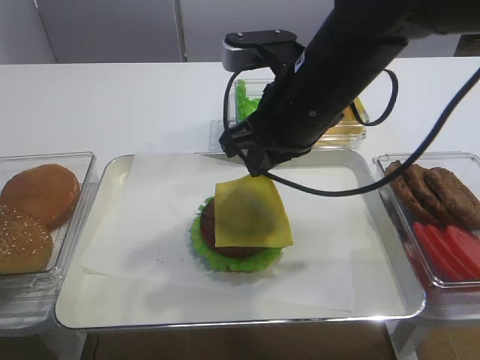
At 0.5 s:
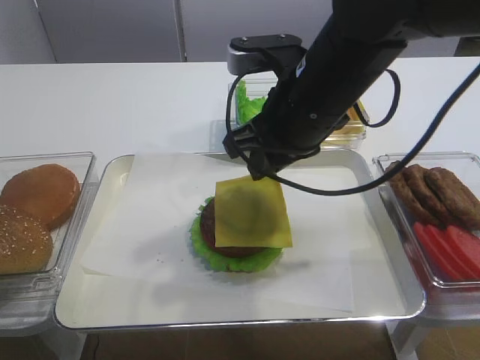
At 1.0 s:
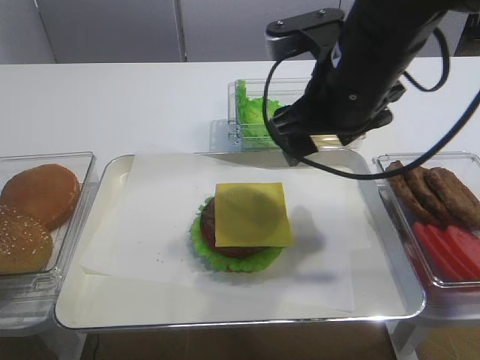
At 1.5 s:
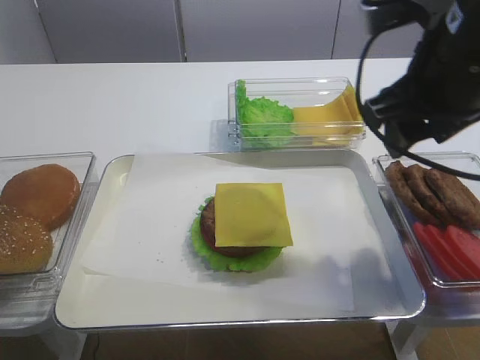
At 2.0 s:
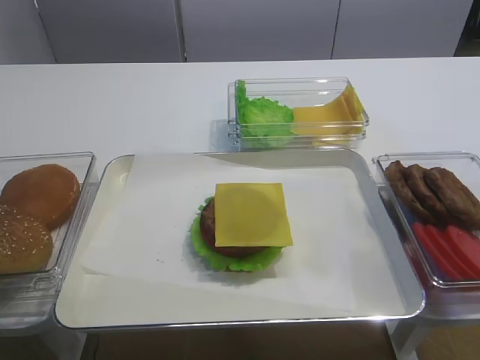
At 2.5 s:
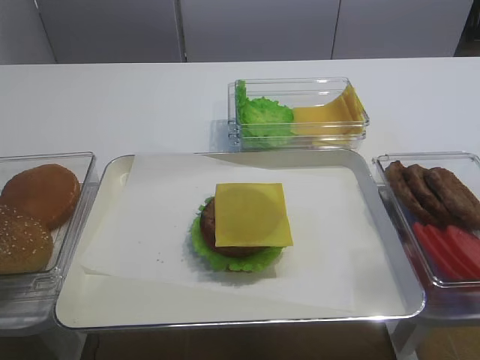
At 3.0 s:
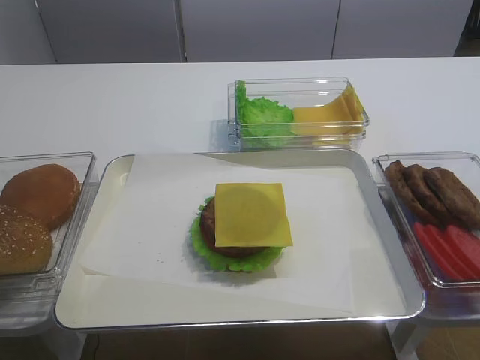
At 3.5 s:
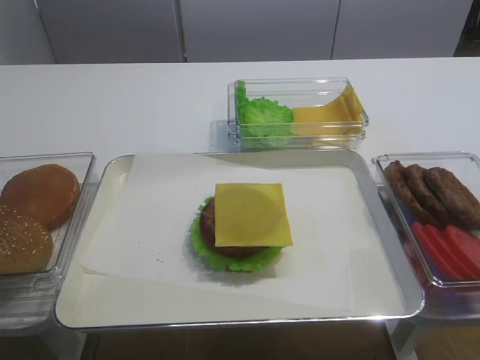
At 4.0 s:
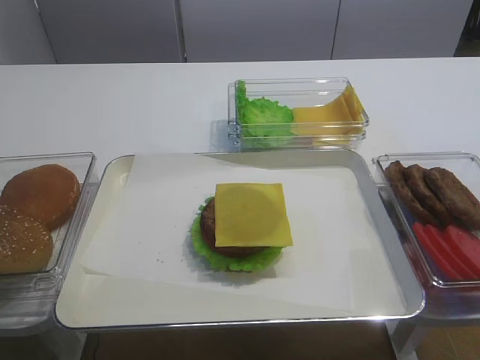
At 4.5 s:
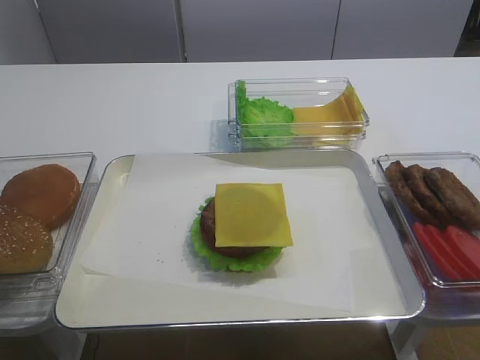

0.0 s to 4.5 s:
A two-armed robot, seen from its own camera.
0.0 to 2.0 s: The right gripper goes some 25 cm backward and to the right, and opens its fingers.

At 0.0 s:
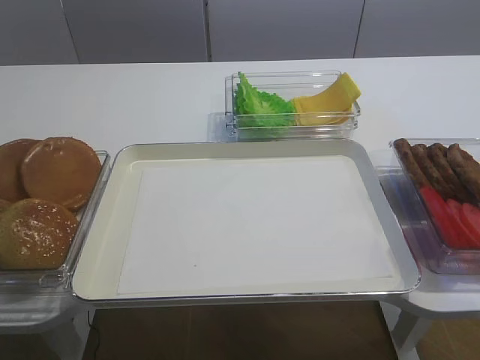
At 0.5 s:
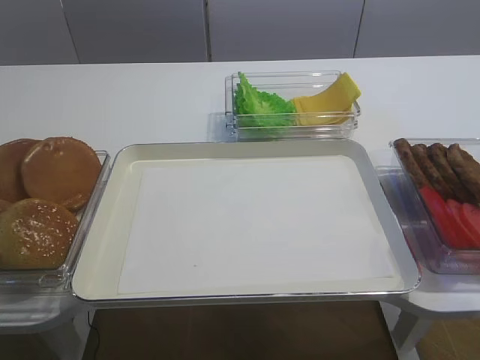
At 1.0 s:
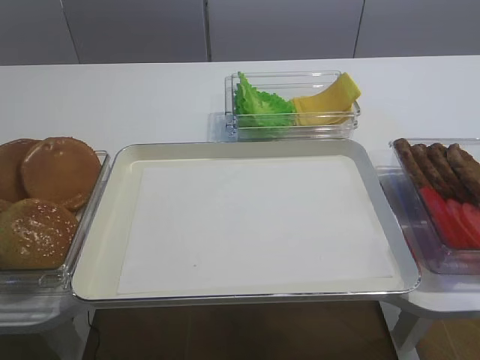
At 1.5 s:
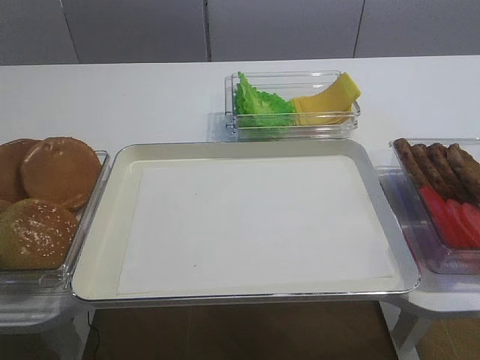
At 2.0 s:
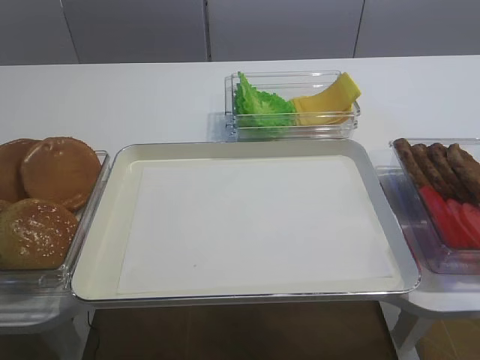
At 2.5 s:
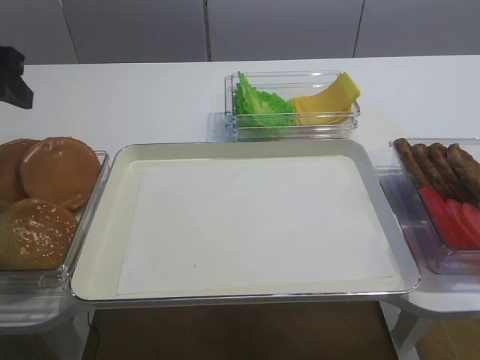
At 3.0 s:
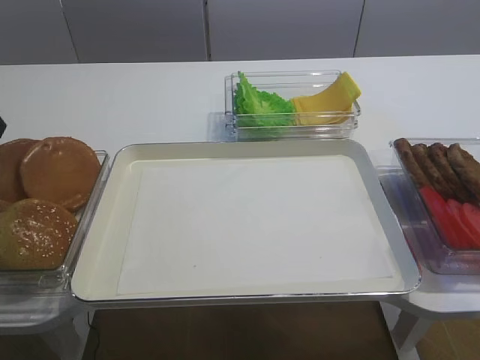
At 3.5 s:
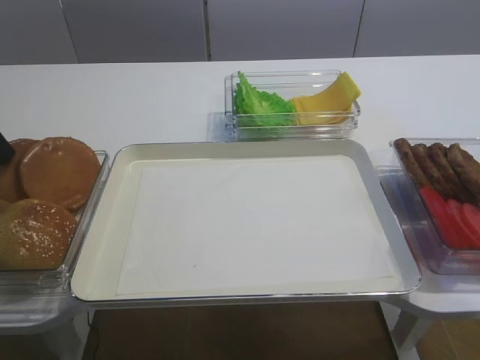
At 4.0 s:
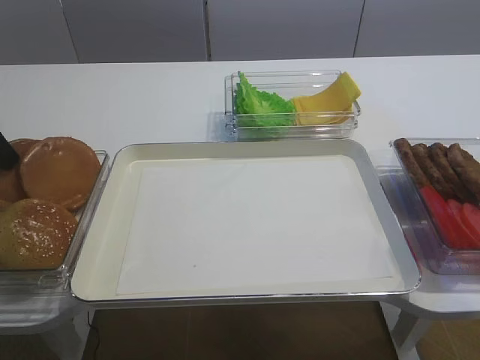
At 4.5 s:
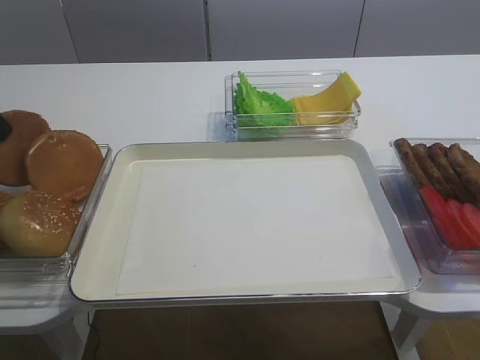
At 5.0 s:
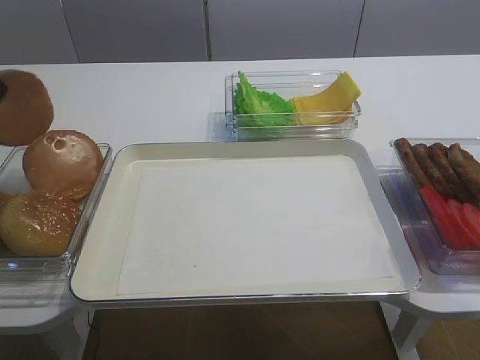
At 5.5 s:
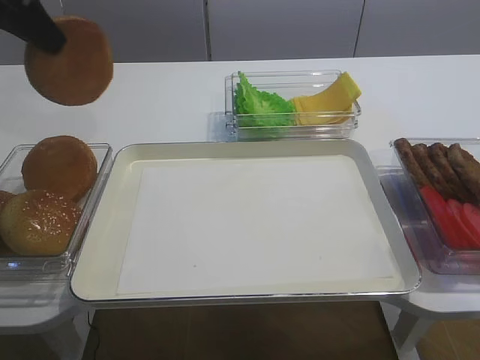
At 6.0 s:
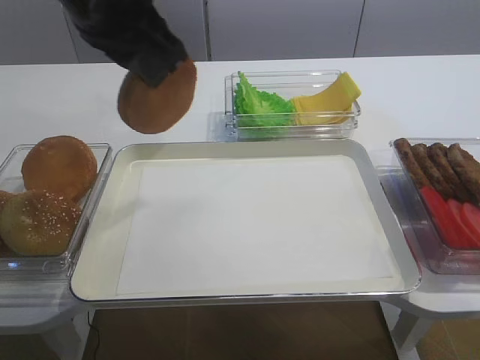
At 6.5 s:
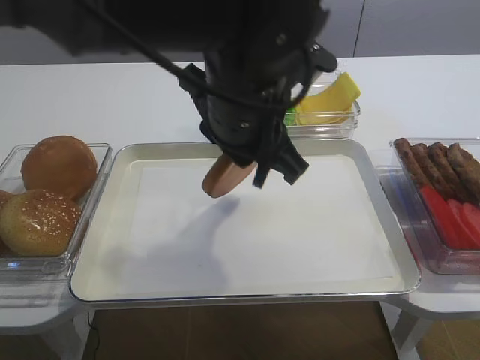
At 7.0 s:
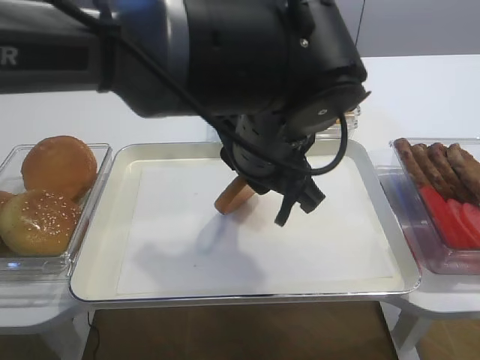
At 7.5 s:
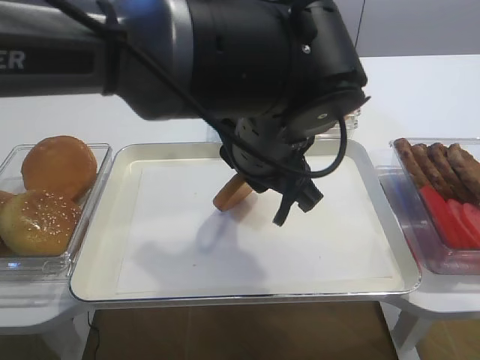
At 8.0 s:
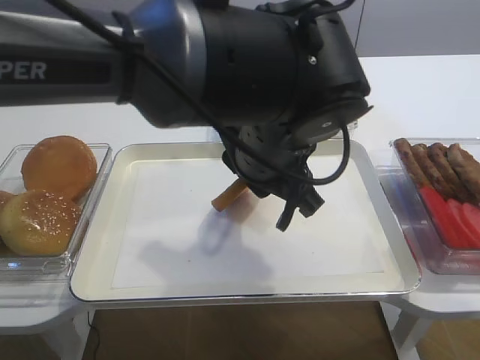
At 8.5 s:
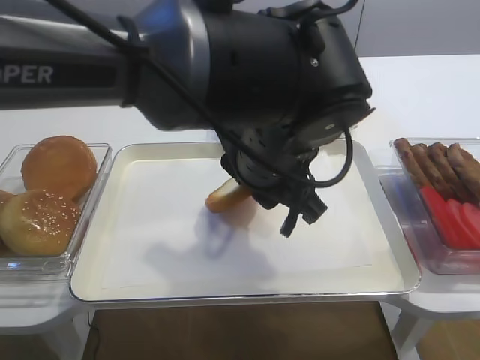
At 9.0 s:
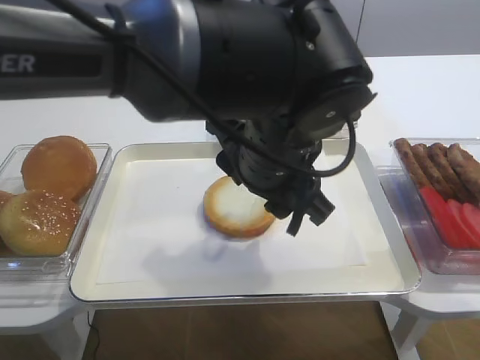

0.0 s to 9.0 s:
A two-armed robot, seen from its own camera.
Step, 0.0 to 5.0 s: Pick up the bread slice with the left gripper.
2.0 to 4.5 s: The left gripper goes approximately 20 cm forward, and closes its fingers.
4.5 to 7.0 s: The left gripper is displaced to the right by about 35 cm.
7.0 to 9.0 s: The left gripper opens up.

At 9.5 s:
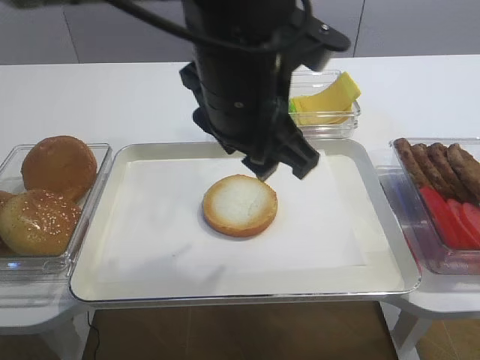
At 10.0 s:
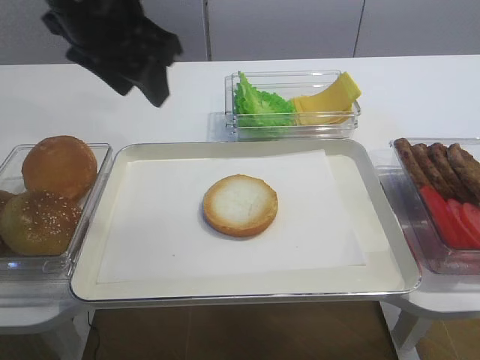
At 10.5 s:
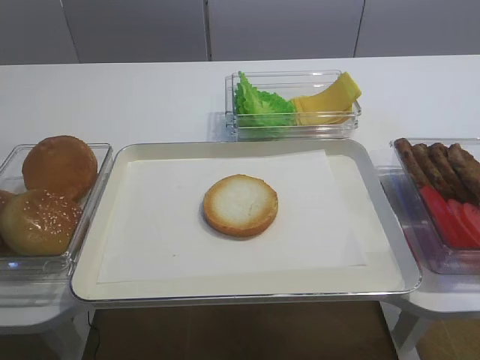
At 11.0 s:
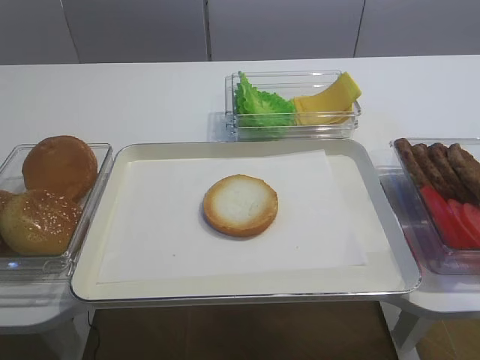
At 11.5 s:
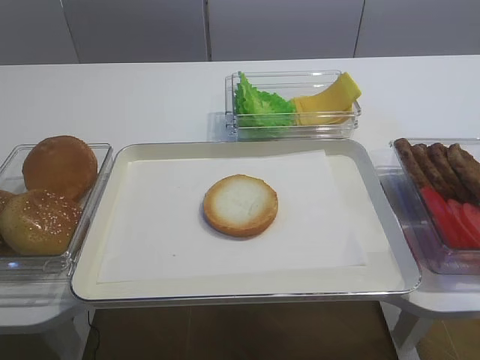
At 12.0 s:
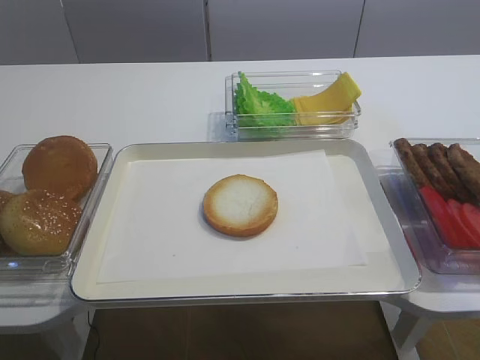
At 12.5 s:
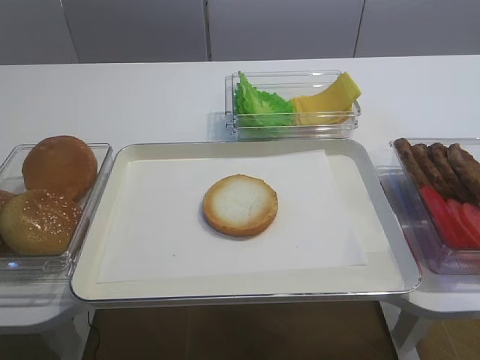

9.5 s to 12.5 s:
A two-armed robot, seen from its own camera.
9.5 to 11.0 s: The left gripper heads to the left, covering some 30 cm.

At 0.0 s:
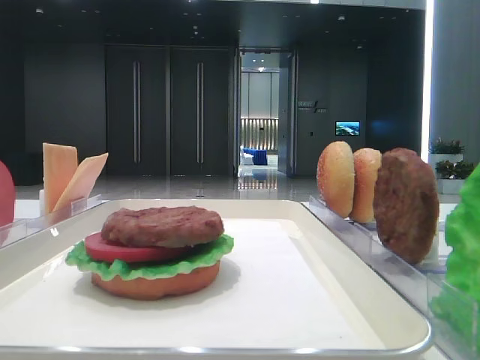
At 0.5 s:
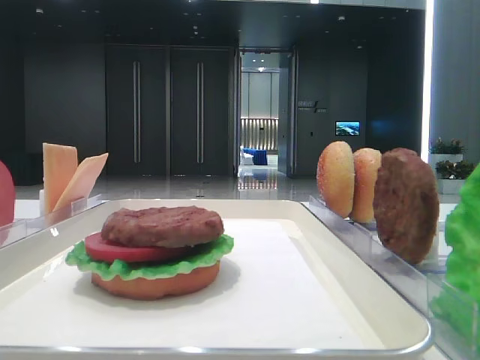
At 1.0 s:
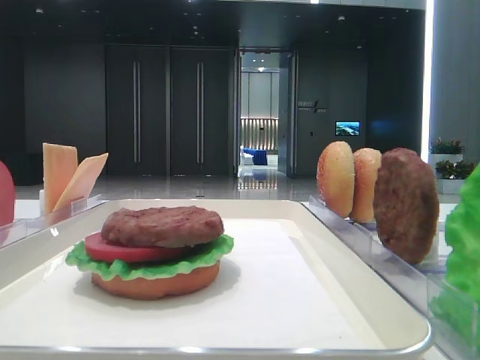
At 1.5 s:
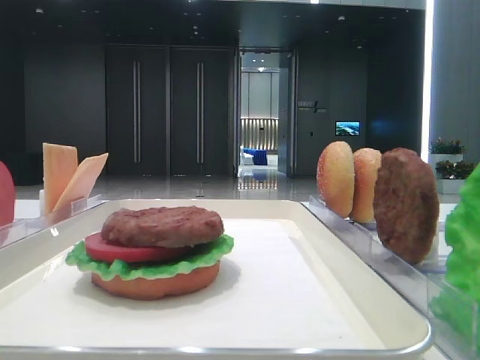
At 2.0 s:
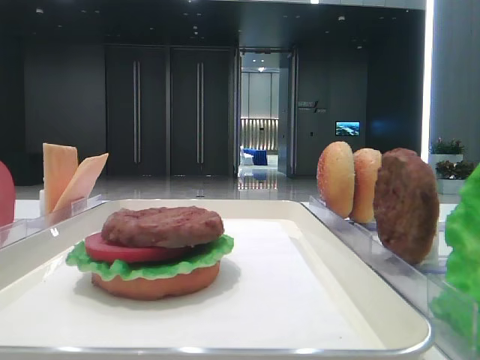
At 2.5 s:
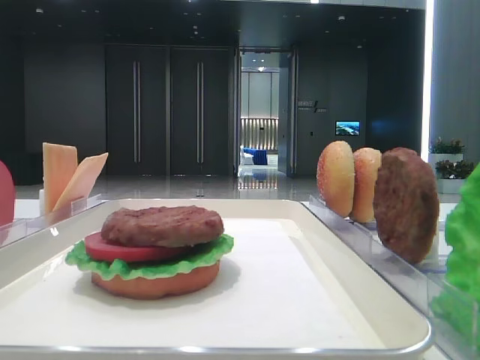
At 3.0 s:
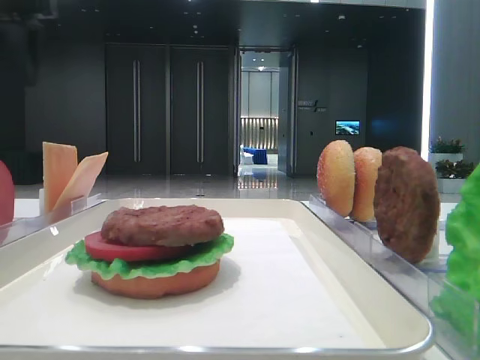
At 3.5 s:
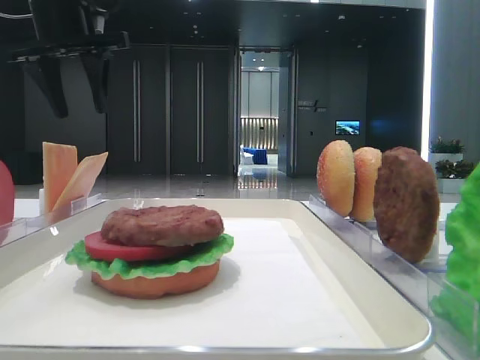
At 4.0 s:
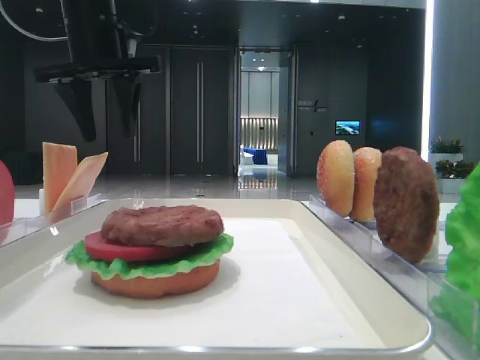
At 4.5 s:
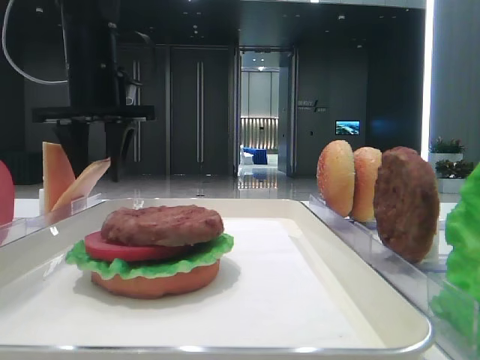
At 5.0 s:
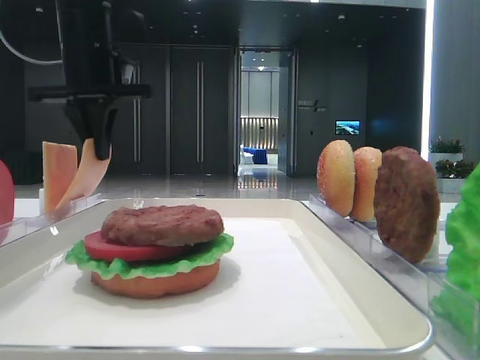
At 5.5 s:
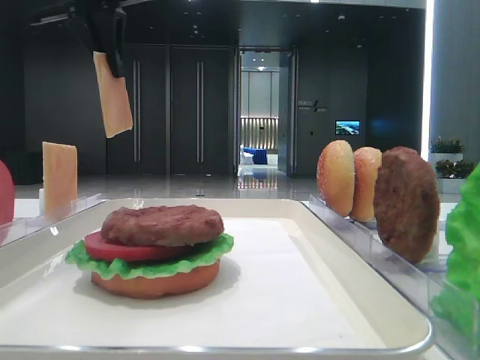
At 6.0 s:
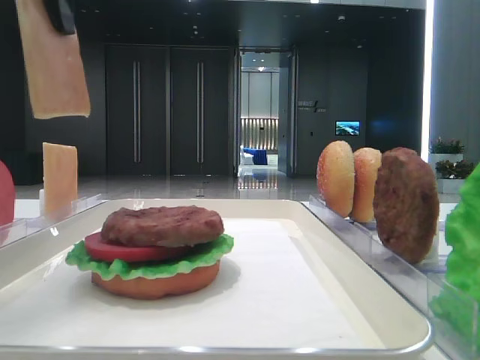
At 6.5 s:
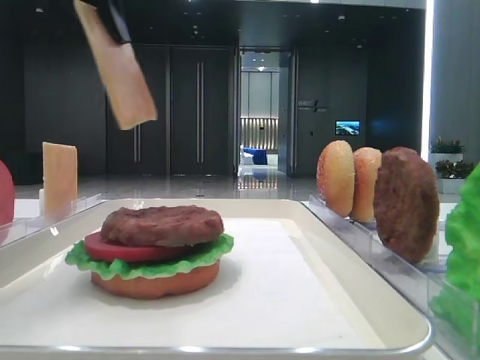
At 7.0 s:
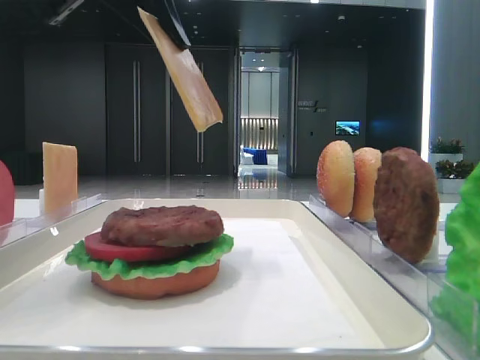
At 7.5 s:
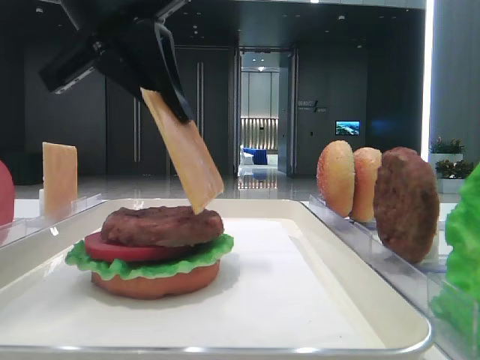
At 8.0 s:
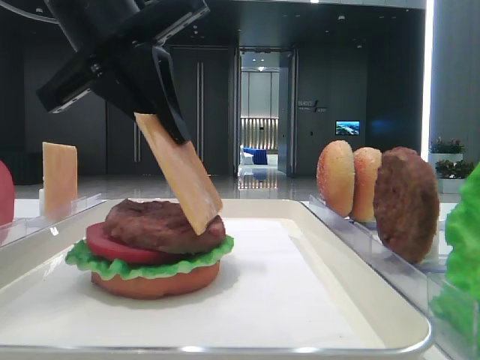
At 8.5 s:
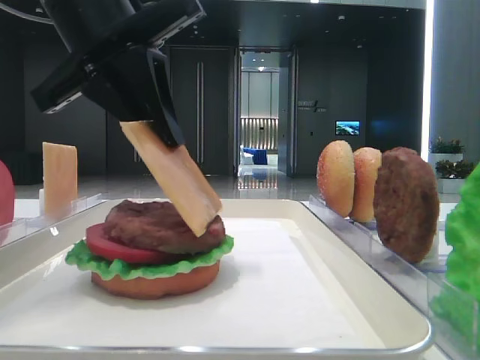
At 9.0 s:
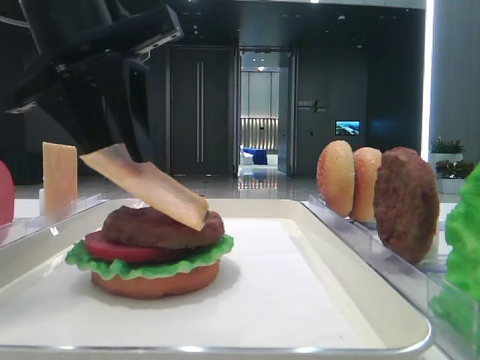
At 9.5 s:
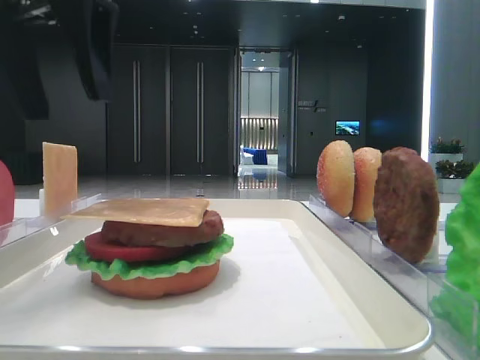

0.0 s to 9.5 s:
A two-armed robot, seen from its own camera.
Step, 0.0 to 4.5 s: Pick up the cheese slice with the left hand.
Step, 5.0 to 9.0 s: Place the cheese slice on the patty with the left hand.
2.0 to 4.0 s: The left gripper heads forward, covering about 50 cm.
4.0 to 5.5 s: The left gripper goes roughly 5 cm upward, and closes up.
5.5 to 7.5 s: The left gripper goes some 15 cm backward, downward and to the right.
7.5 to 9.5 s: The left gripper opens up.
